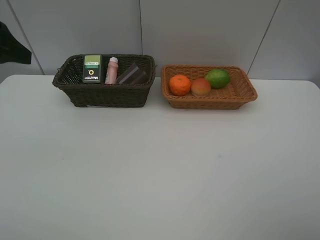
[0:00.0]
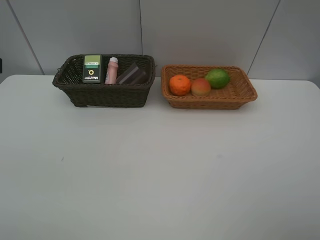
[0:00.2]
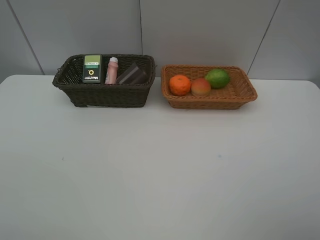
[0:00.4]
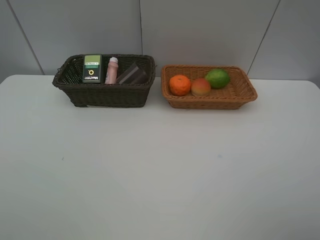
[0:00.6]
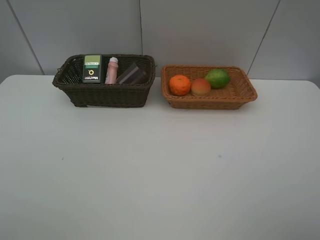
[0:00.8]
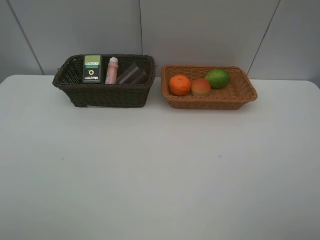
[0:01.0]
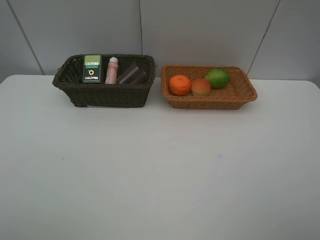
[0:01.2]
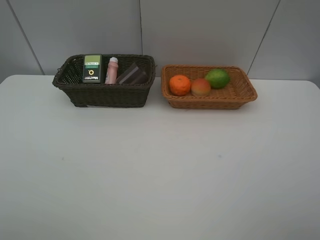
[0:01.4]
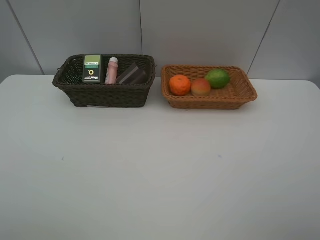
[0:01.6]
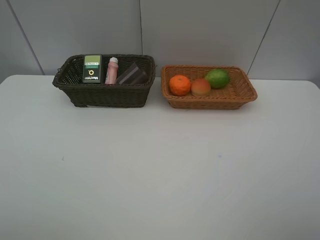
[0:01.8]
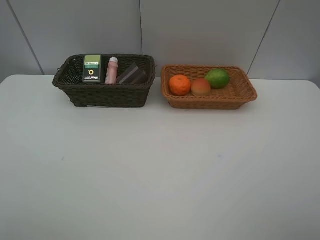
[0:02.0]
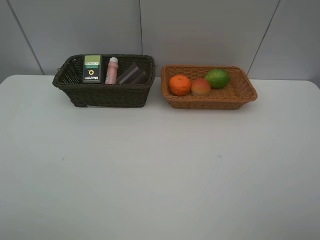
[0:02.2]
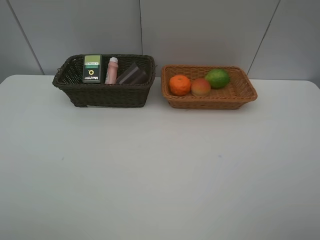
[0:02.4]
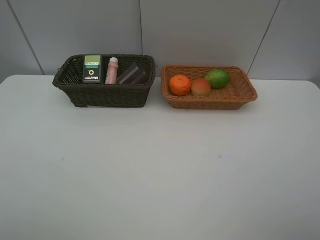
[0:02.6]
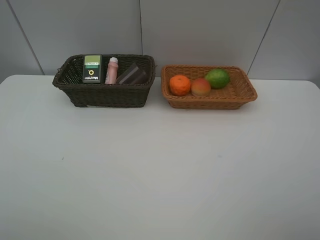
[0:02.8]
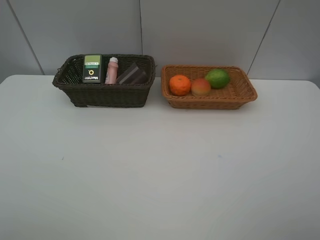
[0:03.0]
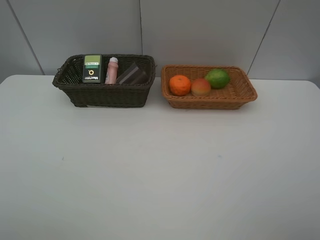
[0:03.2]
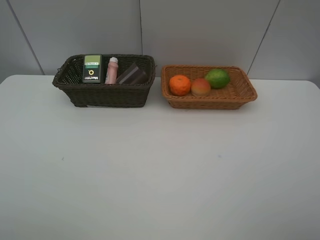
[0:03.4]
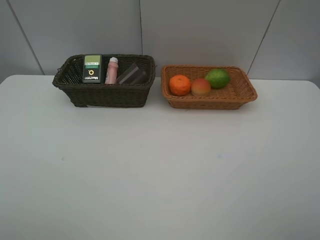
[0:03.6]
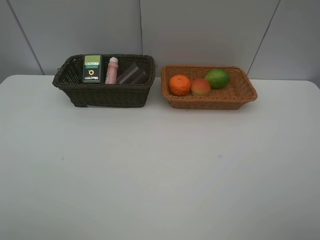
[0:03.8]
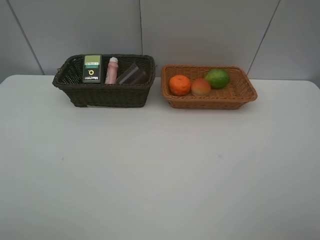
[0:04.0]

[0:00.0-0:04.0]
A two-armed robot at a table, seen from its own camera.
Task of the whole recording: place multiple objects separately in different baskets.
0:00.0 to 0:01.4: The left gripper goes roughly 20 cm backward.
